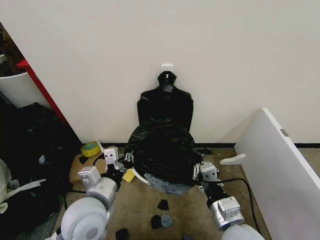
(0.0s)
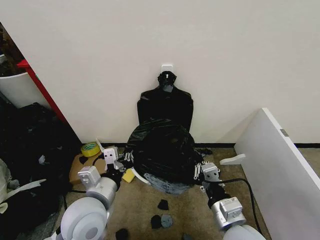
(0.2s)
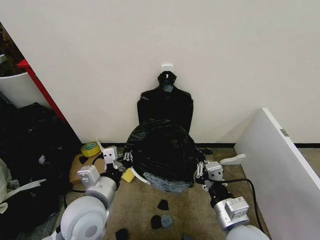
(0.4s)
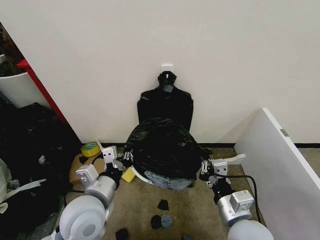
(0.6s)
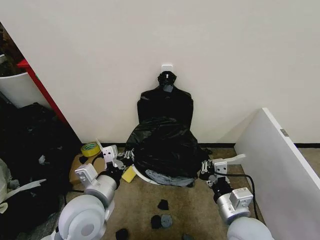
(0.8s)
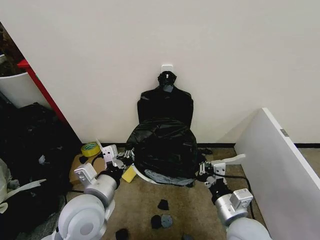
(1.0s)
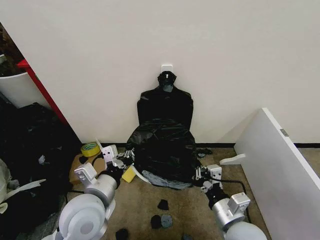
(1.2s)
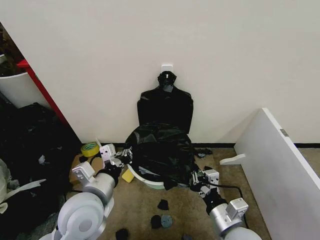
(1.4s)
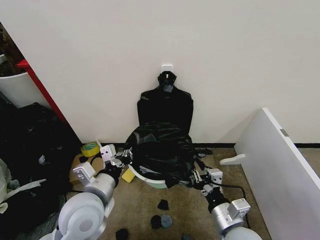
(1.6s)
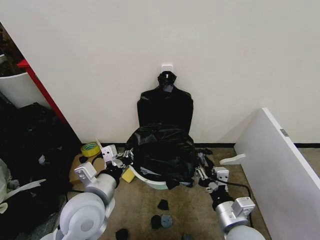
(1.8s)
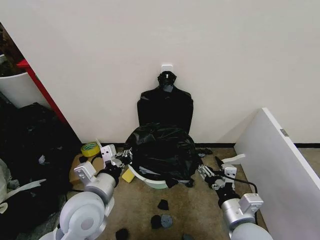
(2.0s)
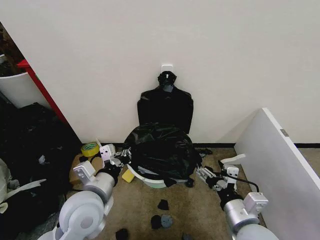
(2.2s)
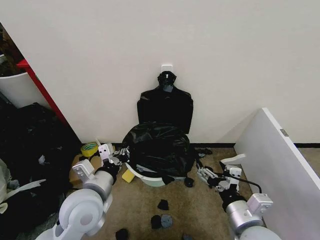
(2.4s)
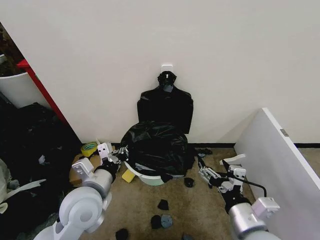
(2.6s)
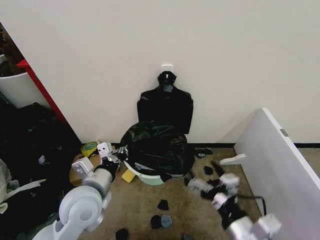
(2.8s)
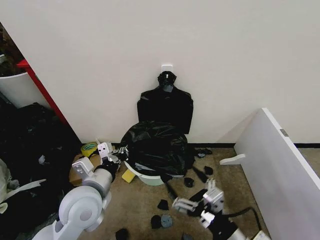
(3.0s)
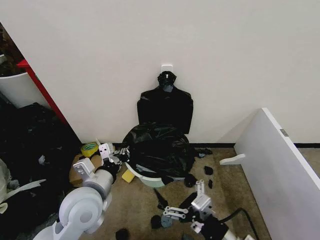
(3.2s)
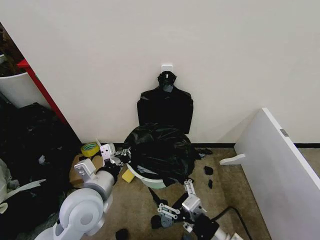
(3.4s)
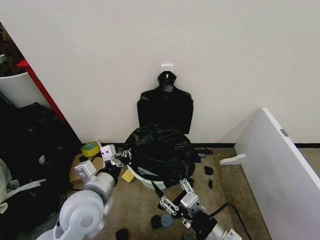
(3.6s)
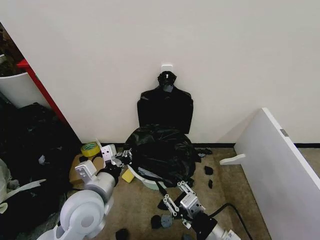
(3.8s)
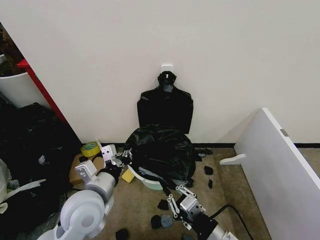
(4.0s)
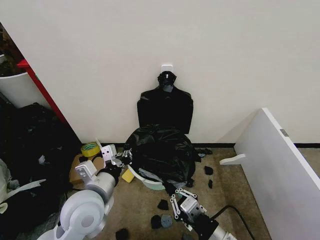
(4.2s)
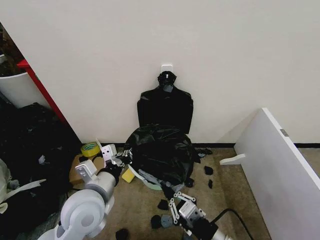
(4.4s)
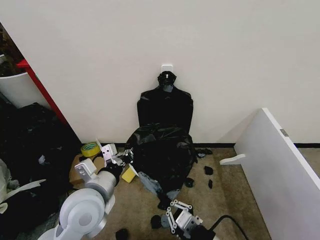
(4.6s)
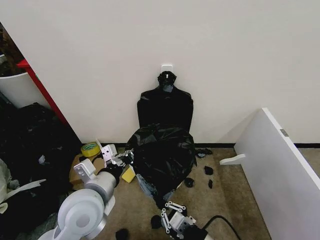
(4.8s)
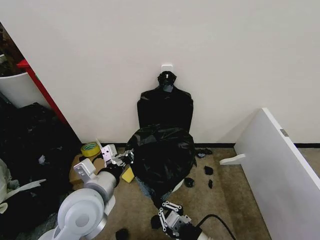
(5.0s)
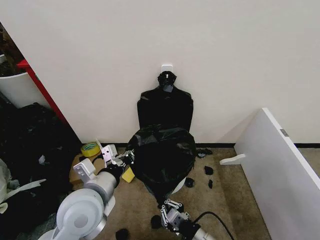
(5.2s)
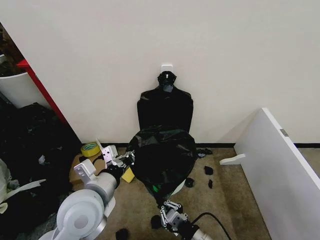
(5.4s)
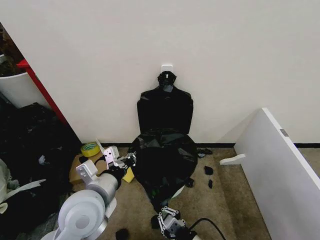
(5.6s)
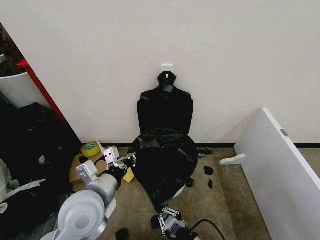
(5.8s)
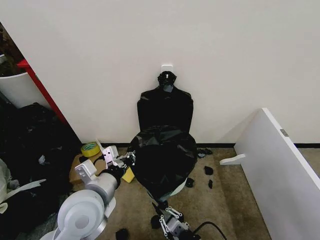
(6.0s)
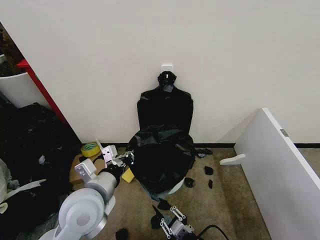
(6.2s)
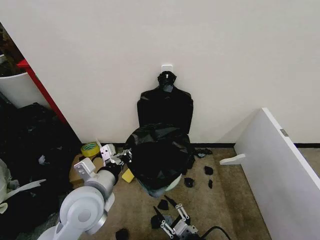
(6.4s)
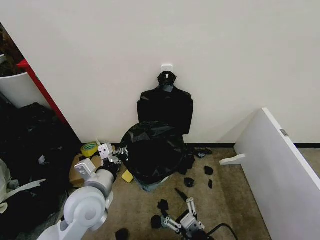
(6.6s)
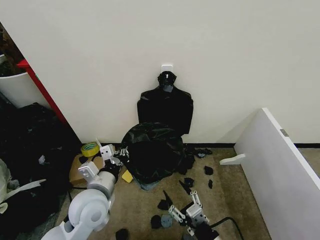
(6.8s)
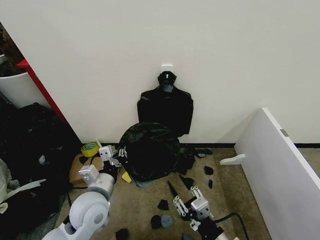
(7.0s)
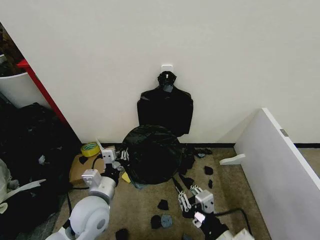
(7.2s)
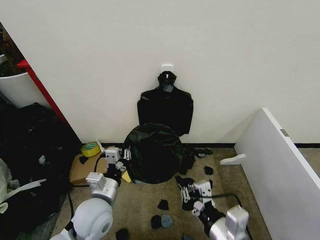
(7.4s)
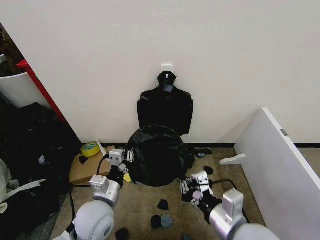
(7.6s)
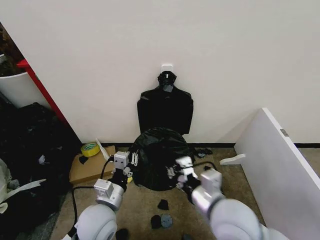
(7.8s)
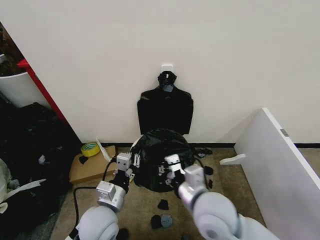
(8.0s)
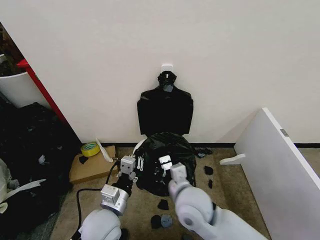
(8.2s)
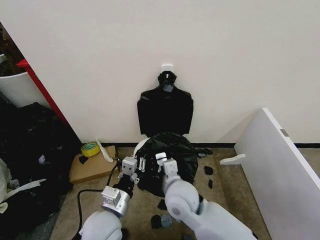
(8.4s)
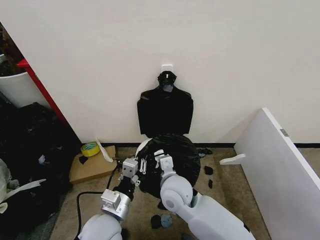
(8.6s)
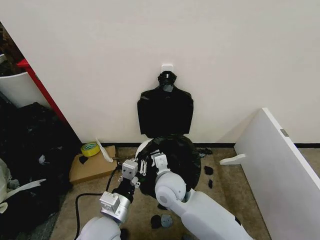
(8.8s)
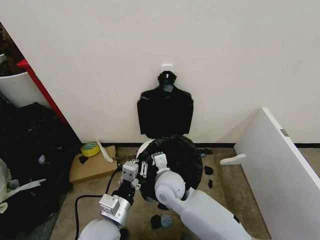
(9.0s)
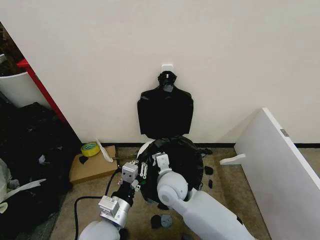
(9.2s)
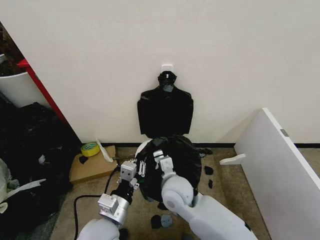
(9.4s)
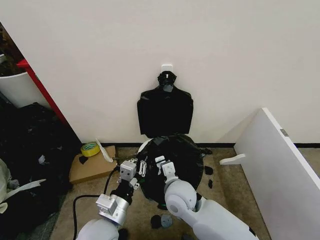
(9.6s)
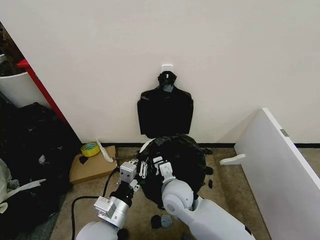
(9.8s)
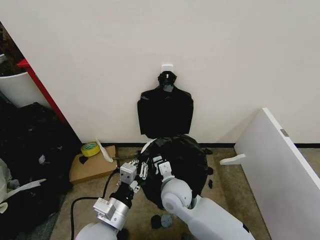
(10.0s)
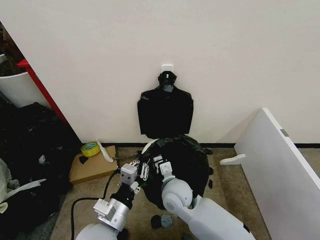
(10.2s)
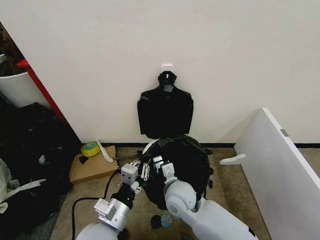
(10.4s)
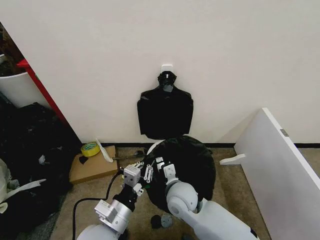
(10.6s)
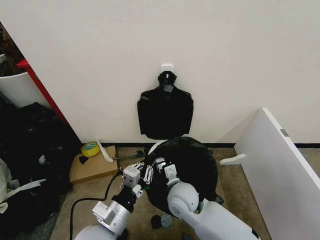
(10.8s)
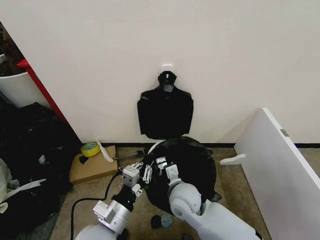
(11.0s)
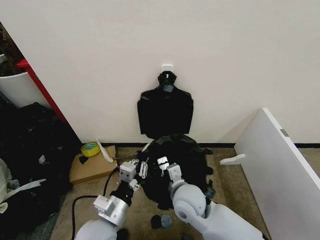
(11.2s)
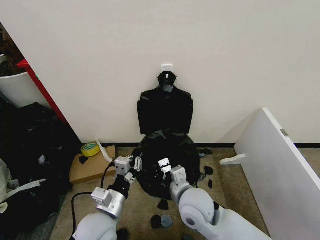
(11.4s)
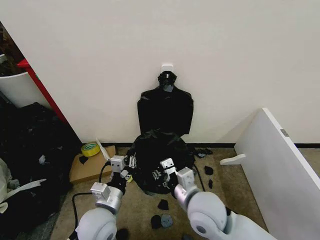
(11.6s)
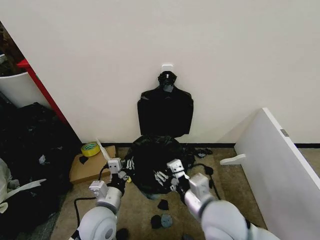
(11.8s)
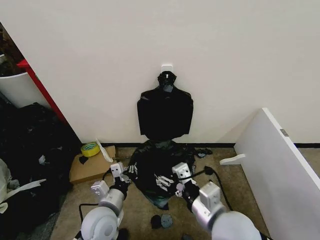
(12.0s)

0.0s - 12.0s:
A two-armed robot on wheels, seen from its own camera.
Task of the whole recording: Place the garbage bag over the trash bin.
1.6s - 3.0s: The right gripper heads backward, covering approximately 5 cm, and opens up.
3.0s - 4.4s: The right gripper closes up.
4.4s - 6.0s: The right gripper travels downward by roughly 10 cm.
6.0s - 7.6s: The right gripper is displaced upward by approximately 20 cm, and opens and closes again; the left gripper travels downward by about 10 cm.
7.6s - 9.0s: The right gripper travels forward, to the left and downward by roughly 25 cm. The left gripper changes place by some 5 cm.
9.0s - 10.4s: The grippers move only a little.
10.4s - 12.0s: The left gripper shifts about 5 cm forward. The right gripper is displaced backward, to the right and upward by about 20 cm, and opens.

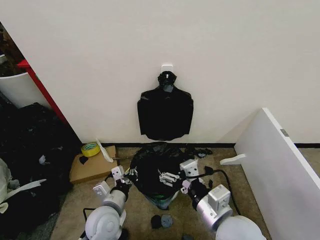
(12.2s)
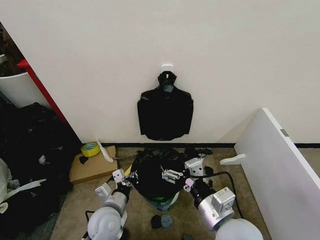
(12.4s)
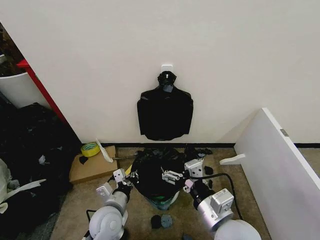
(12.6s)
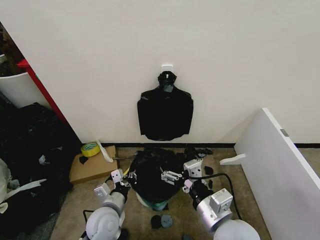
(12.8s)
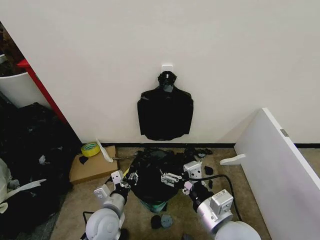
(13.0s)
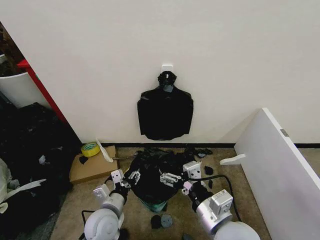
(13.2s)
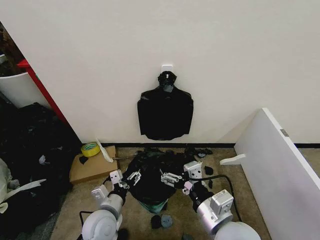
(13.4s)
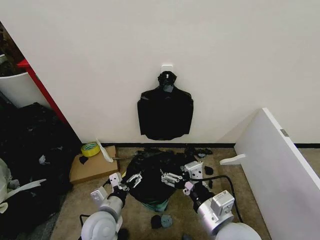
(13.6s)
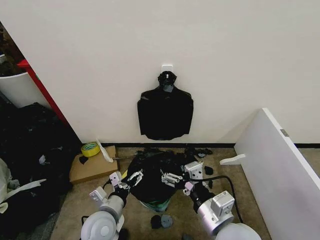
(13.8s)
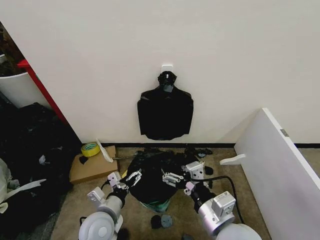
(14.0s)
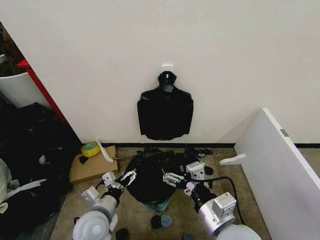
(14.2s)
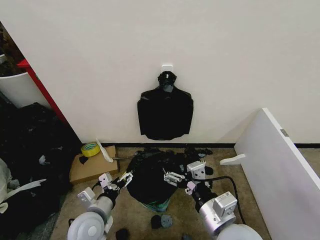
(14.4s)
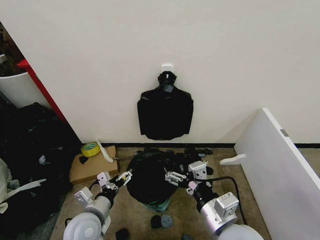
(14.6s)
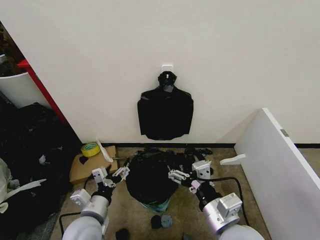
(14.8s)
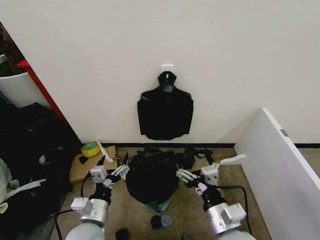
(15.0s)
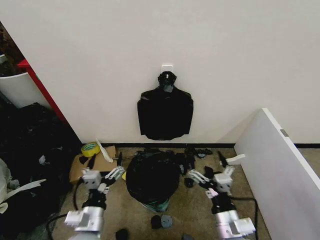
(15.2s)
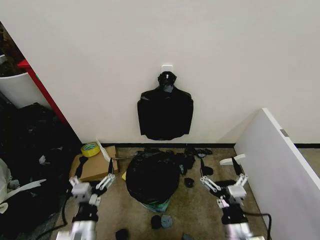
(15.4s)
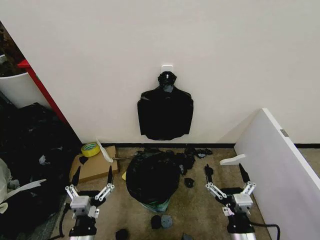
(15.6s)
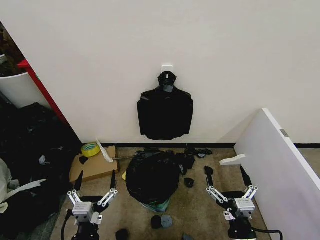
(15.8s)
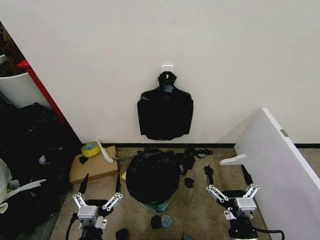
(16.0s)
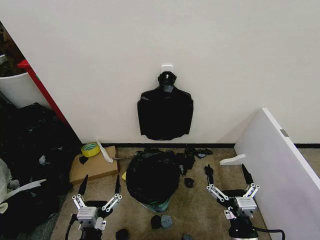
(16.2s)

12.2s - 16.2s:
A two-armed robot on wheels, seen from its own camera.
Task of the whole recording: Place the garbage bag over the trash bin.
12.2s - 13.6s: The left gripper opens.
13.6s - 14.8s: The left gripper ends up roughly 5 cm from where it was.
14.8s - 16.2s: The right gripper shifts roughly 10 cm downward and backward, while the left gripper travels backward by some 15 cm.

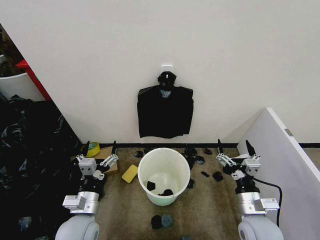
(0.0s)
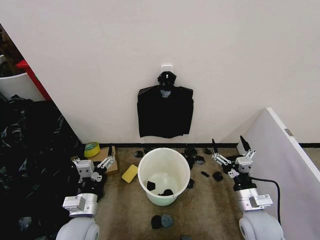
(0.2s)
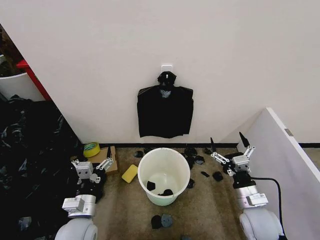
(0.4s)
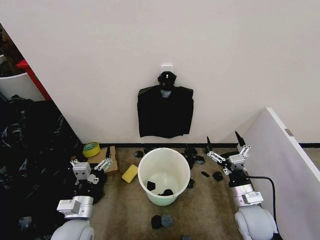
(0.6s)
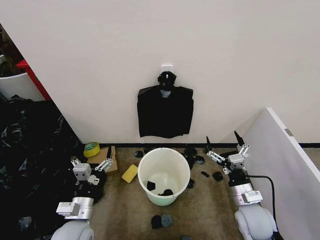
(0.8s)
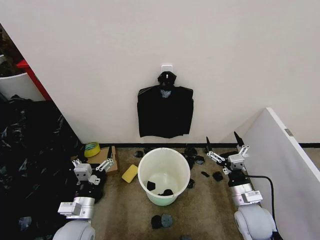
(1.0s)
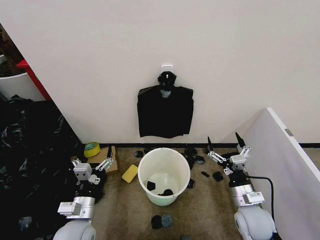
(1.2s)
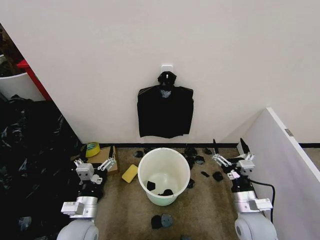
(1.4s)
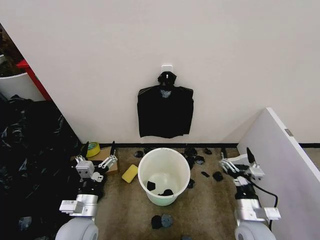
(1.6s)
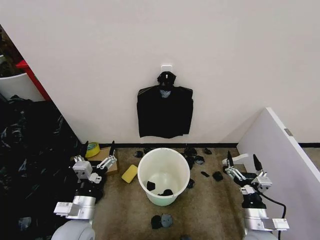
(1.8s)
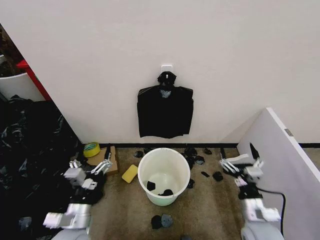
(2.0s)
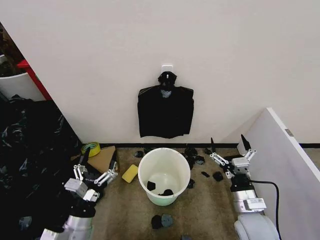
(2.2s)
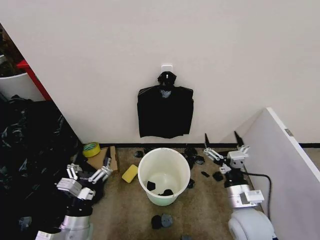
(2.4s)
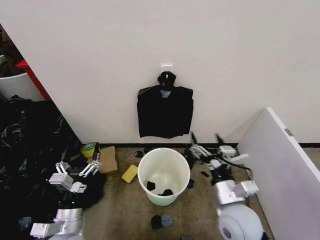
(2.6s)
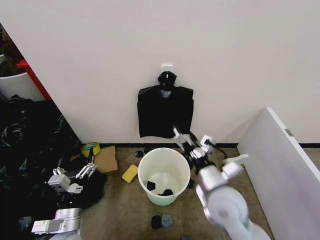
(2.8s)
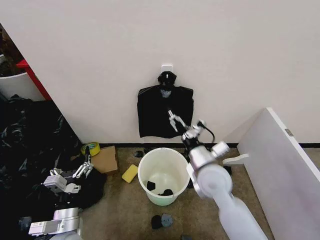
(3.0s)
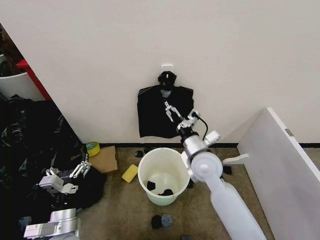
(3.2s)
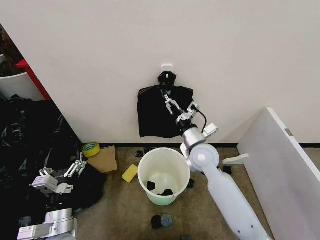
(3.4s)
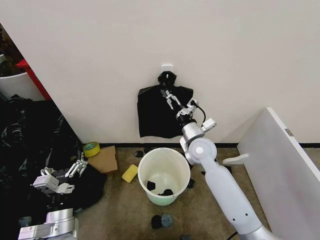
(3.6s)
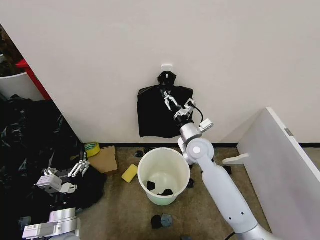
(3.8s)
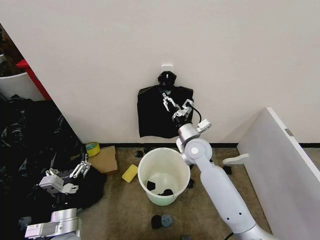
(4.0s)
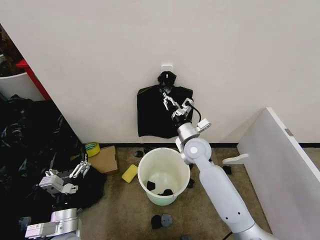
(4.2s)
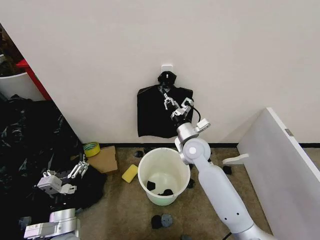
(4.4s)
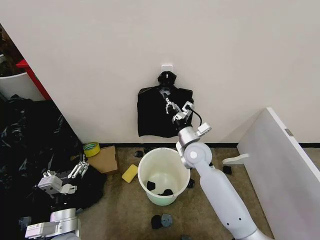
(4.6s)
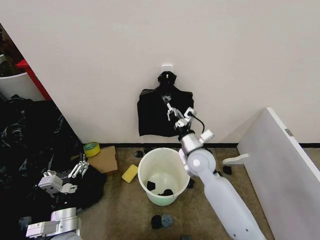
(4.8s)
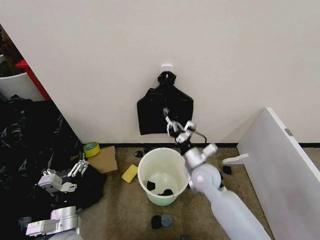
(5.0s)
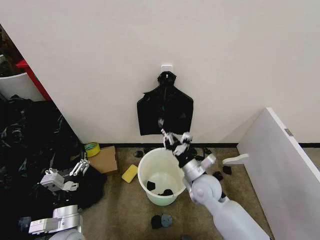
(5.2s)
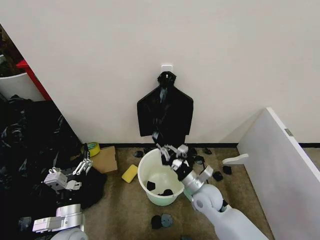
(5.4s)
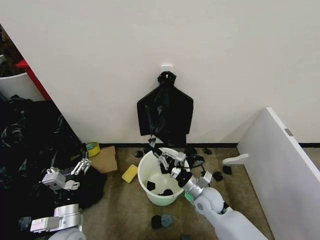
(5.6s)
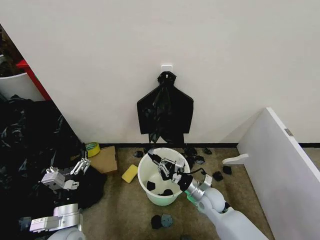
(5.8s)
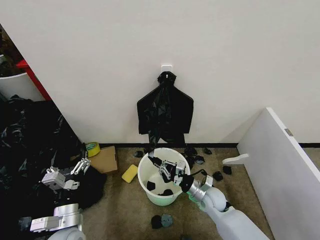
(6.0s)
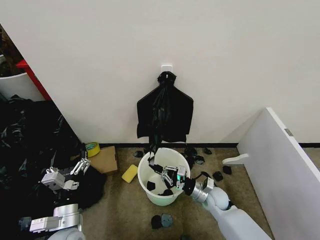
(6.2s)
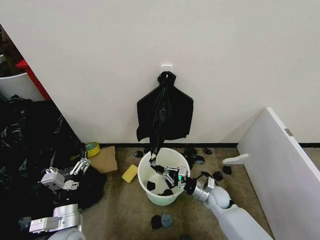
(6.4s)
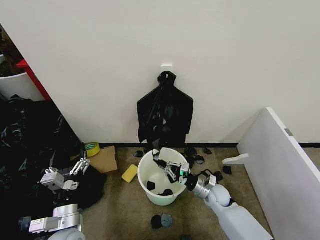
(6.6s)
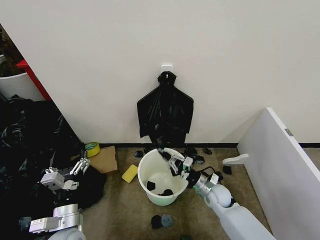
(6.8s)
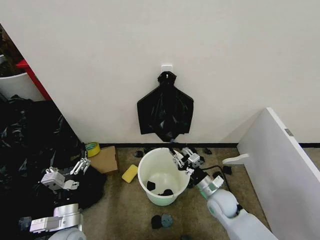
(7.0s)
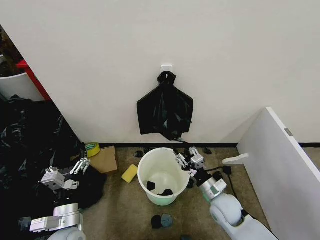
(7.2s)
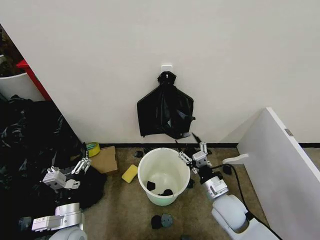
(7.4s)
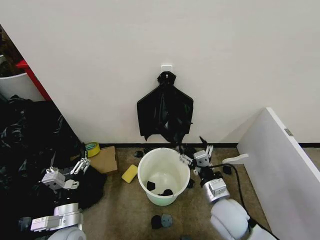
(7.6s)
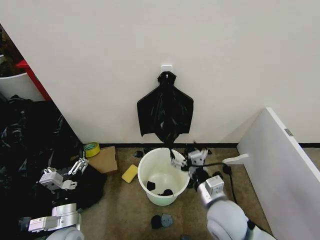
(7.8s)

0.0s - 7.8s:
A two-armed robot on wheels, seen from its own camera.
Task of the whole recording: Place the garbage bag over the trash bin.
1.6s - 3.2s: The right gripper travels forward, to the left and upward by about 25 cm. Meanwhile the left gripper shifts by about 5 cm.
3.2s - 4.6s: The right gripper heads forward, covering roughly 5 cm, and closes up.
4.6s - 6.2s: The right gripper moves downward, backward and to the right, some 20 cm.
6.2s - 7.8s: The right gripper goes some 20 cm upward and backward, and opens its fingers.
